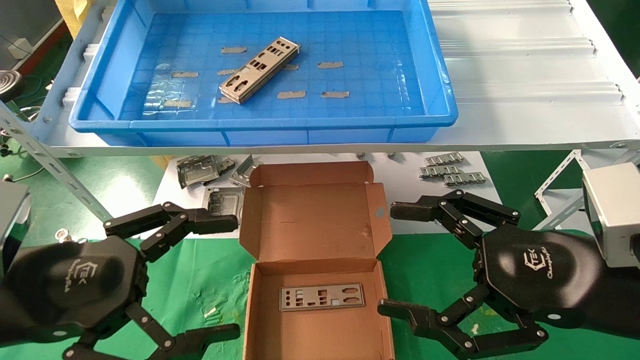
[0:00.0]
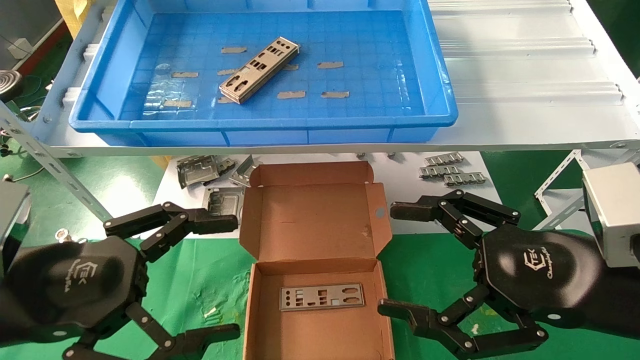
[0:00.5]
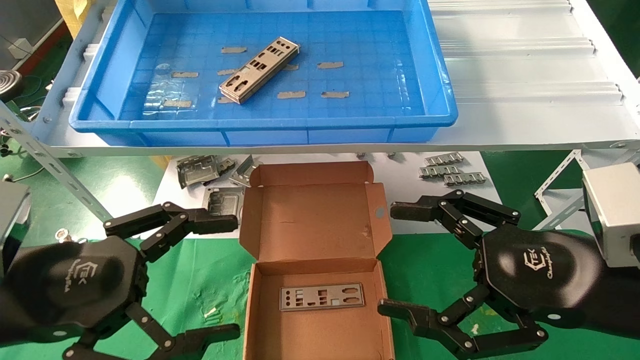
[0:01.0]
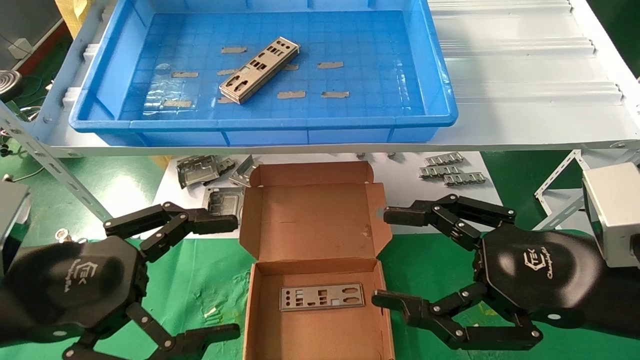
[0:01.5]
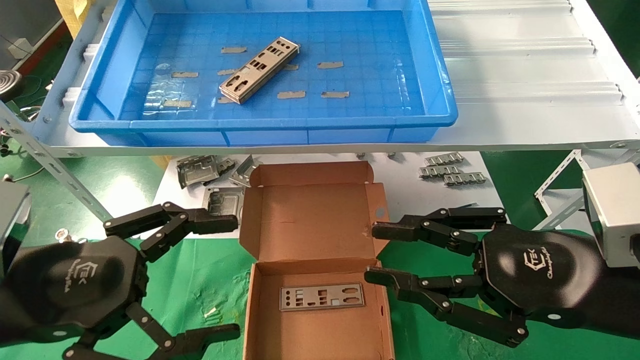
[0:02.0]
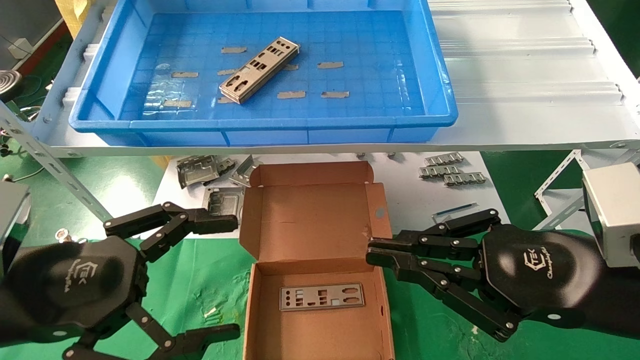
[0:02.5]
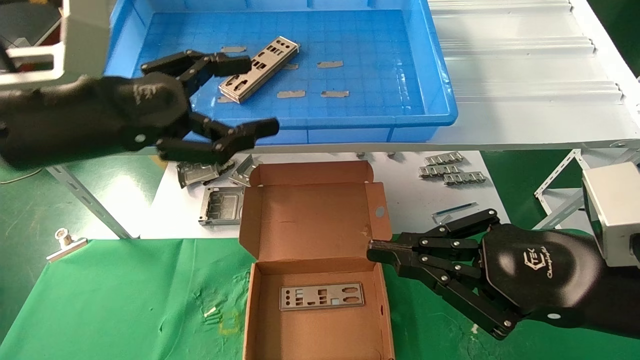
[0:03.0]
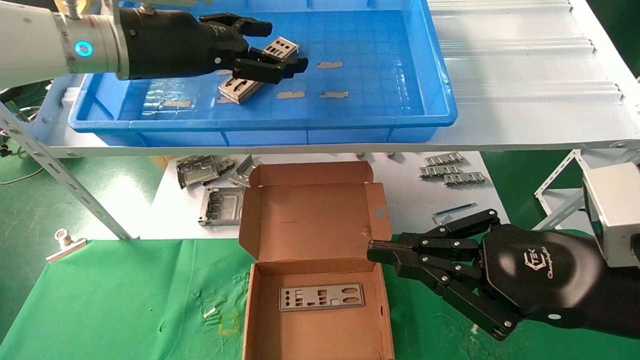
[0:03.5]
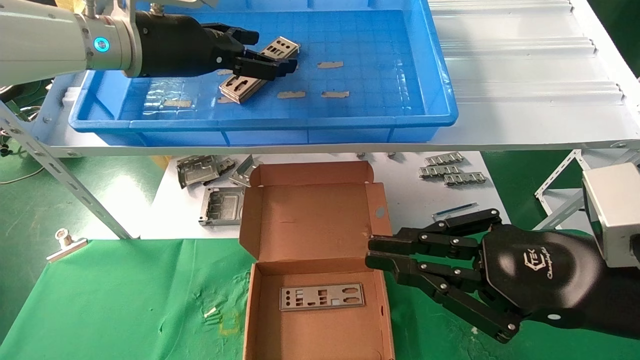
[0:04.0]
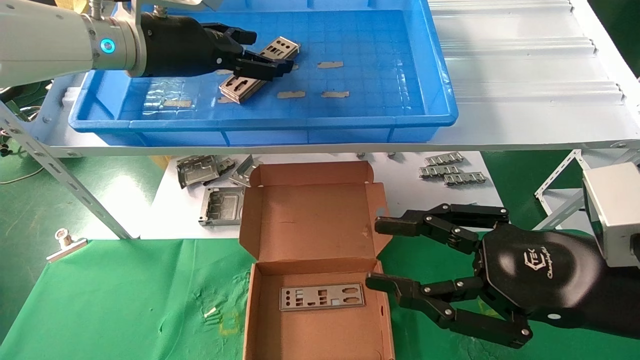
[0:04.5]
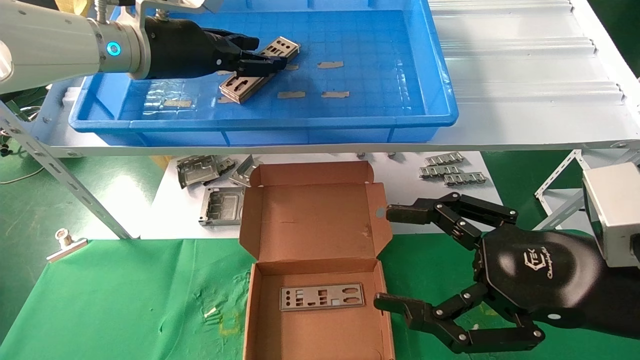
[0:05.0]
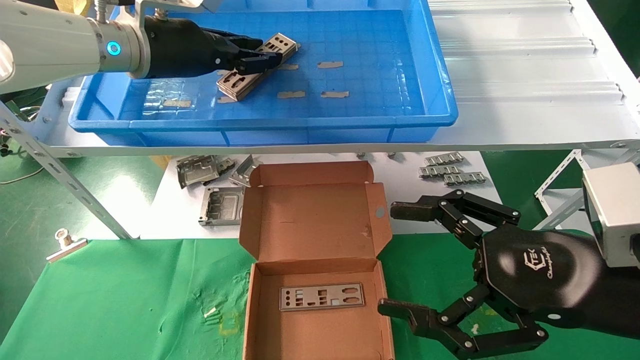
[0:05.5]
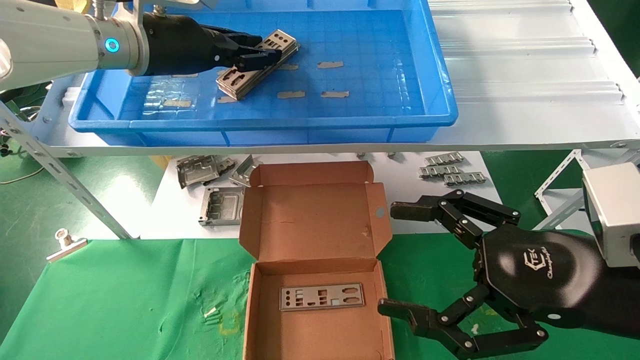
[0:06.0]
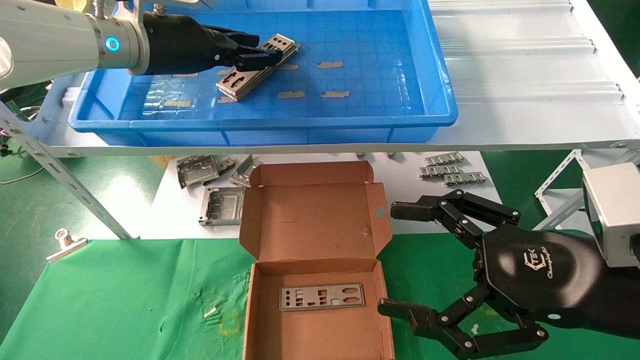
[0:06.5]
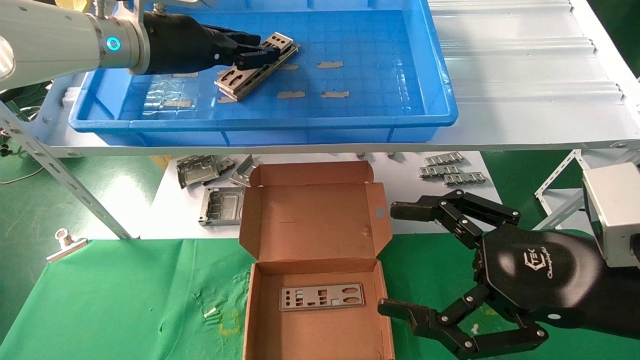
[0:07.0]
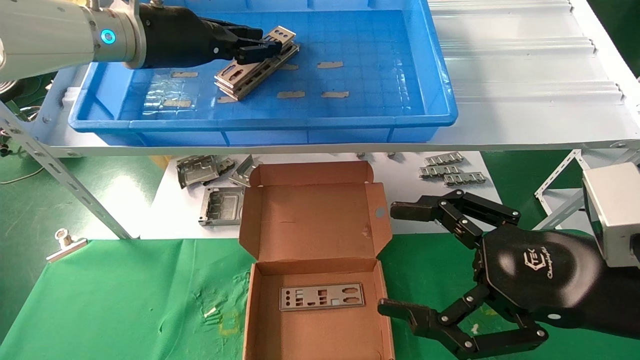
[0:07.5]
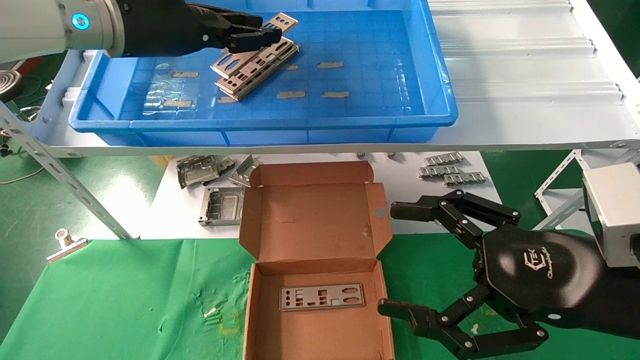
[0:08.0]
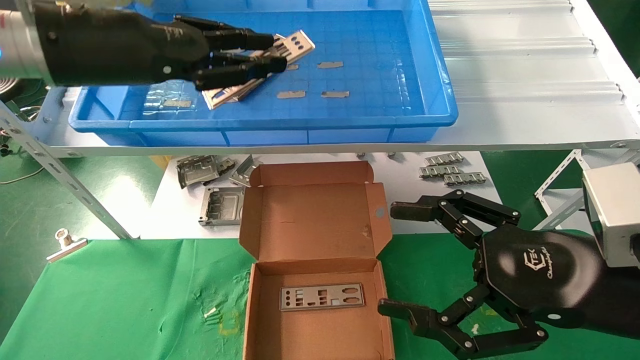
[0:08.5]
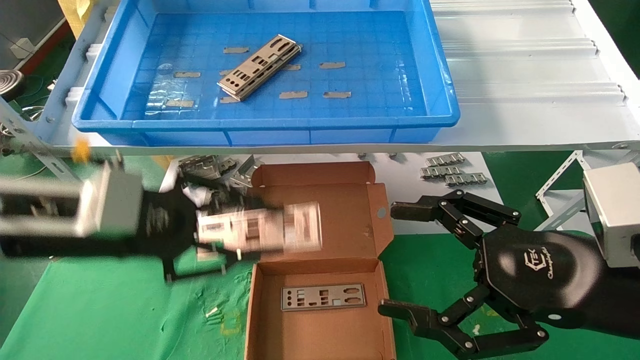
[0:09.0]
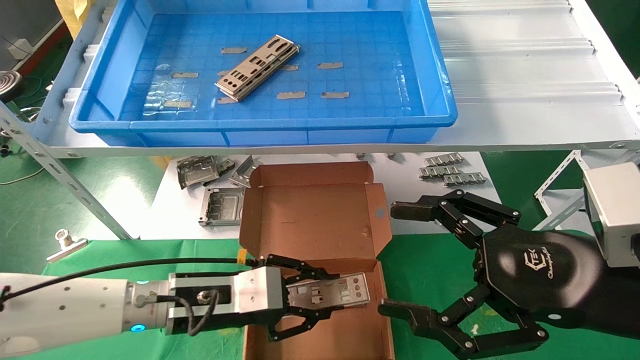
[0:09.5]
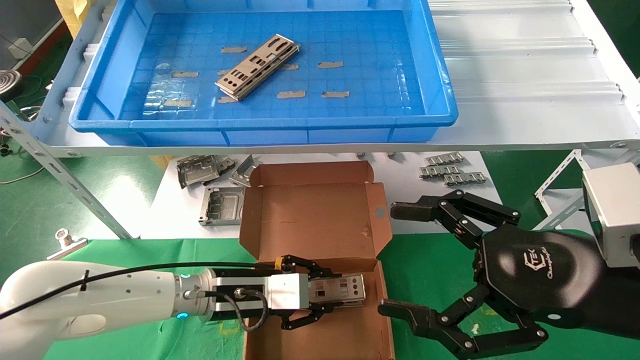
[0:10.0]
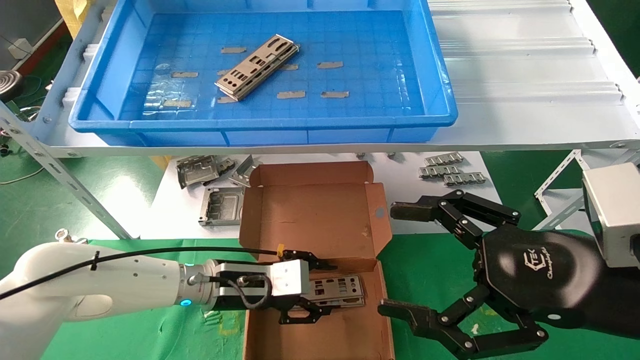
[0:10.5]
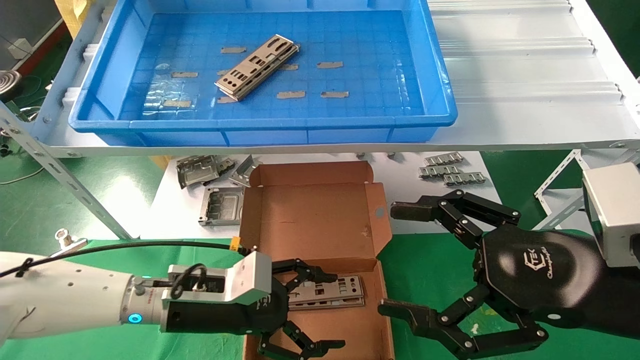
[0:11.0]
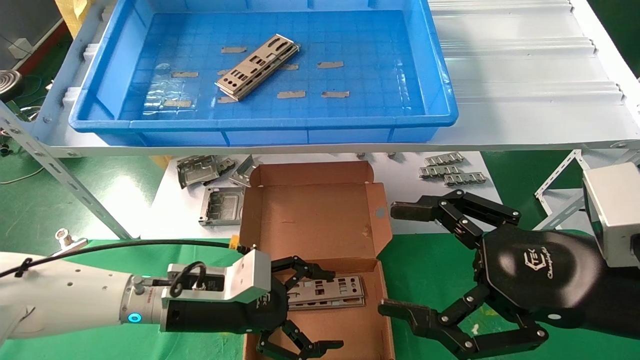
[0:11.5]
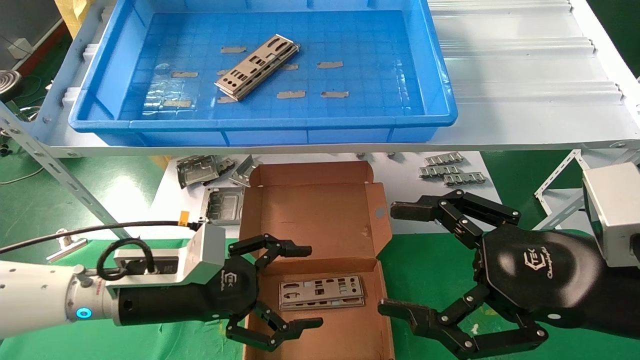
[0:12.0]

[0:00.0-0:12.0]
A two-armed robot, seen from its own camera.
Task of the whole recording: pick up the parts on the tray and put them in the cardboard box.
Step, 0:03.0 to 0:07.5: Pick up the IO bracket from the container box.
Step, 0:08.0 to 0:10.5: Place the IO bracket into the ingredient slot.
0:00.0 to 0:02.0: The right gripper closes its fingers.
0:02.0 to 0:04.0: The left gripper moves forward and upward, roughly 30 cm; the right gripper closes up.
0:04.0 to 0:06.0: The left gripper closes its fingers; the right gripper opens up.
0:06.0 to 0:08.0: The grippers make only small movements.
0:08.0 to 0:10.0: The left gripper travels downward by about 35 cm.
0:10.0 to 0:12.0: The left gripper goes some 10 cm backward, to the left and upward, and opens up.

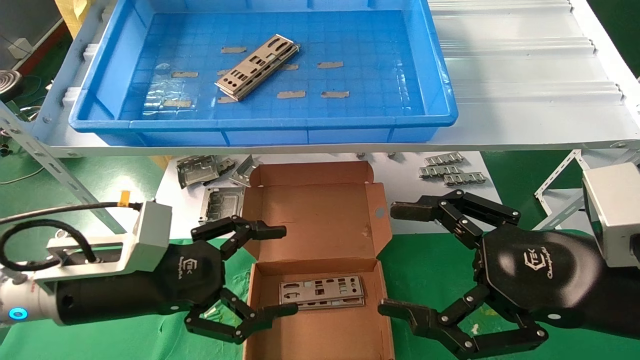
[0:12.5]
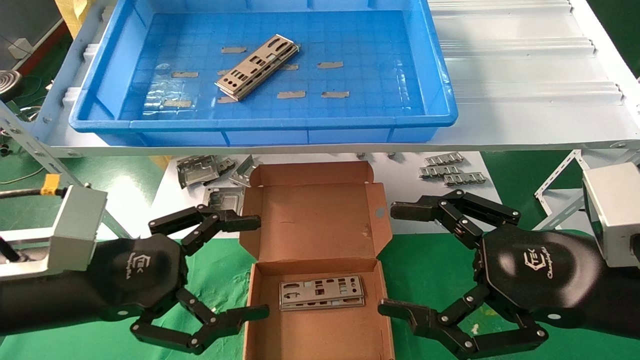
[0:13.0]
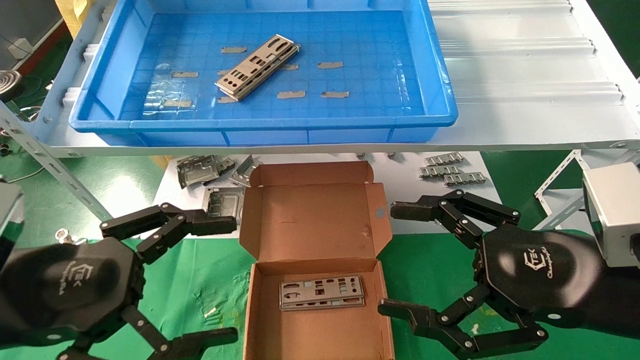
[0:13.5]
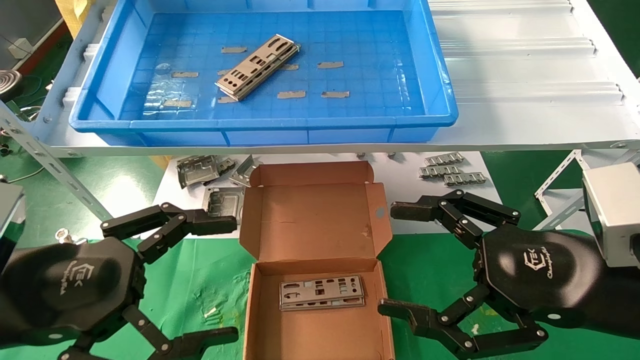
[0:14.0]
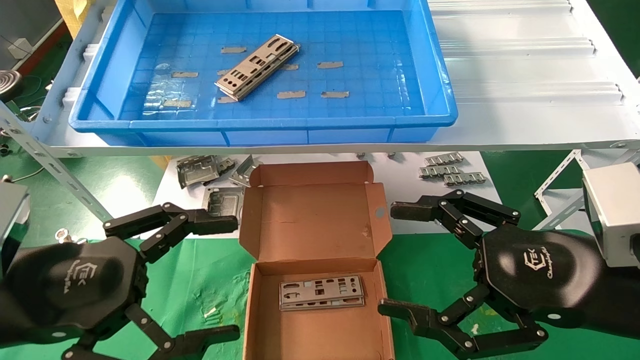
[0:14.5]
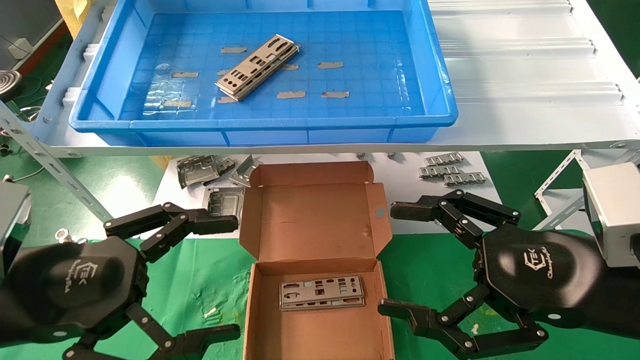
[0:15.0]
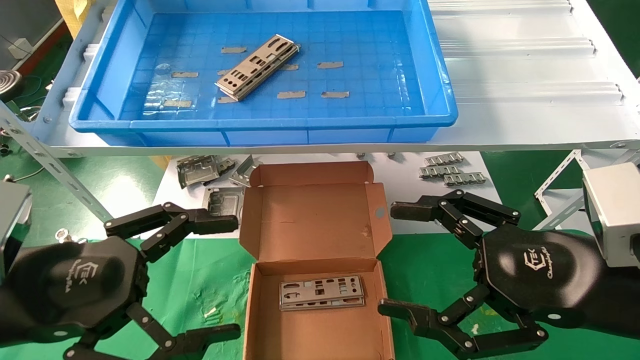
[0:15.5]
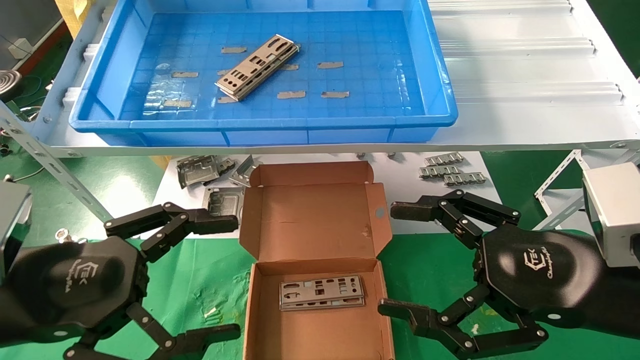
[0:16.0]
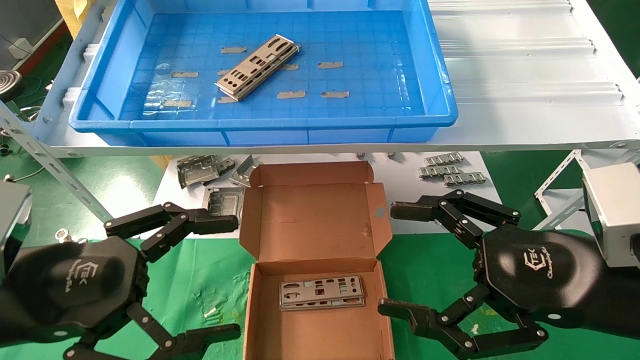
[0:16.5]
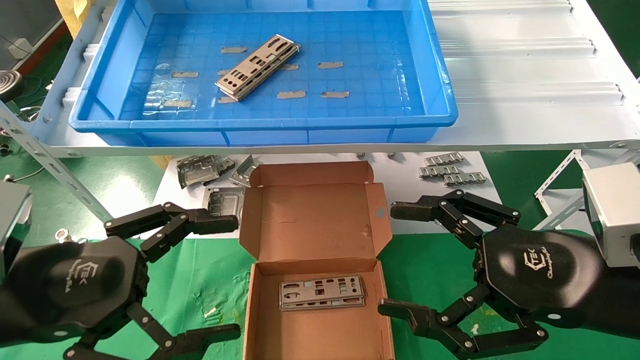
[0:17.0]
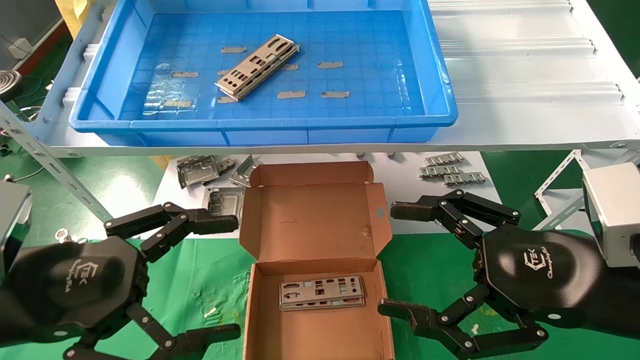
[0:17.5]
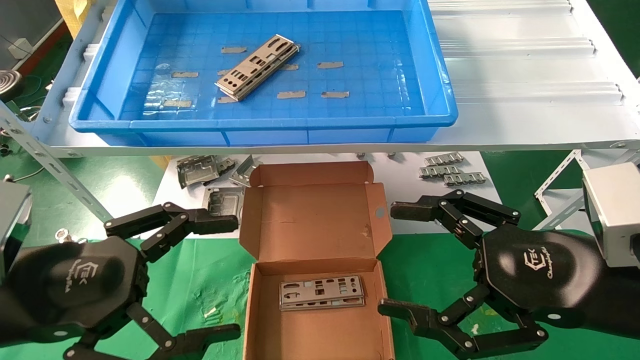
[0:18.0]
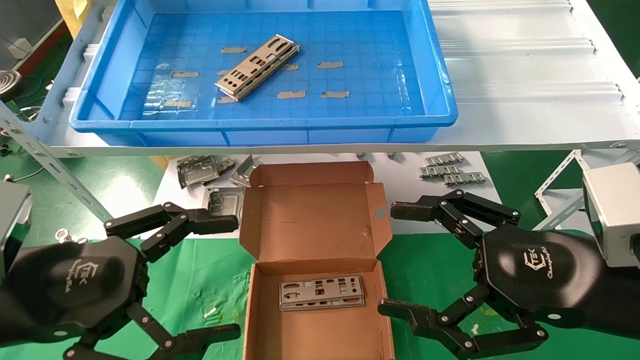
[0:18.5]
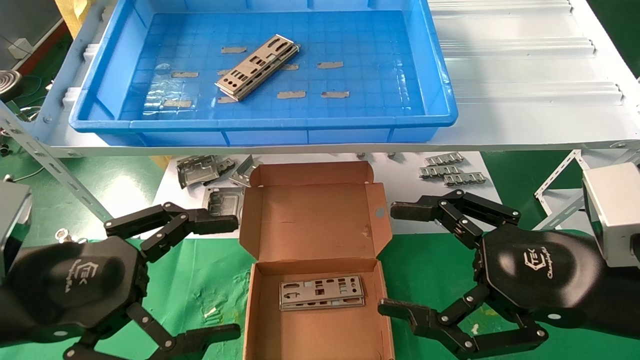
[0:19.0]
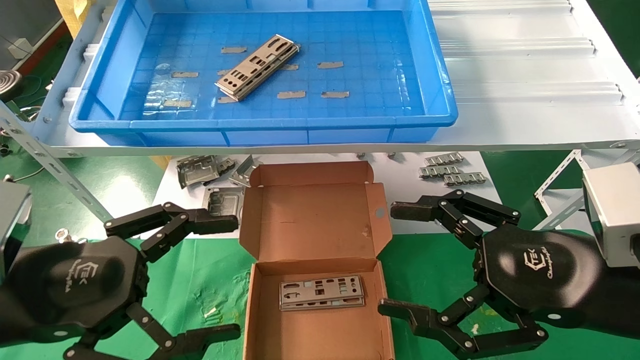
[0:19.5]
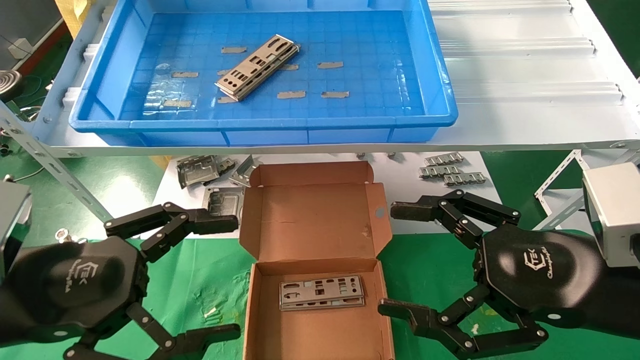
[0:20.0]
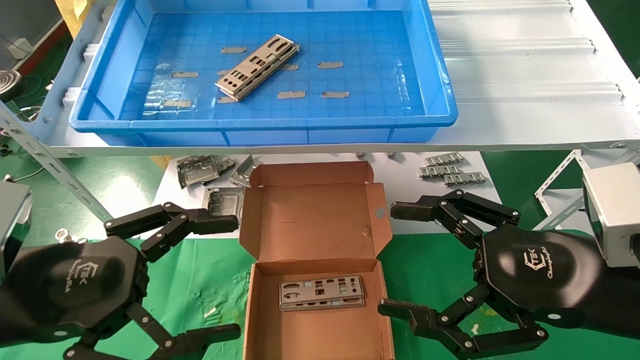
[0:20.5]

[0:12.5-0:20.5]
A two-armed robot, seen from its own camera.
Task of the whole recording: pick up the parts on the tray and put them in the cardboard box.
0:12.5 to 0:14.5: The left gripper travels backward and upward by about 10 cm.
0:14.5 to 0:20.5: Both grippers stay about where they are.
